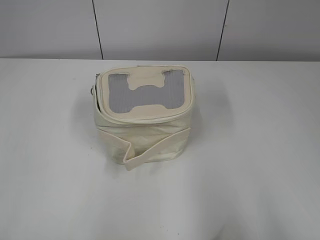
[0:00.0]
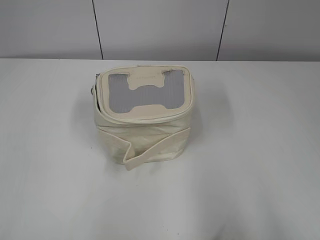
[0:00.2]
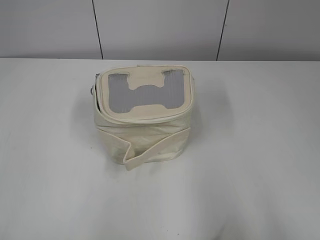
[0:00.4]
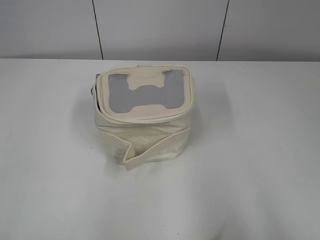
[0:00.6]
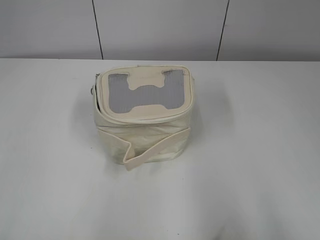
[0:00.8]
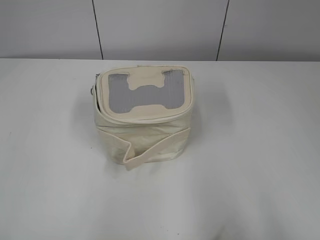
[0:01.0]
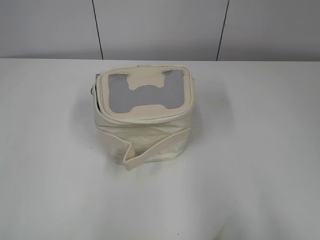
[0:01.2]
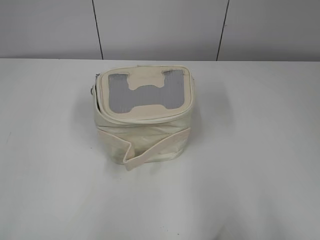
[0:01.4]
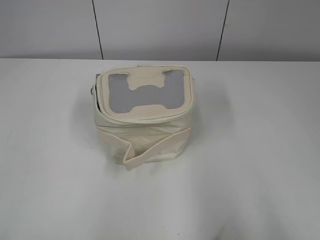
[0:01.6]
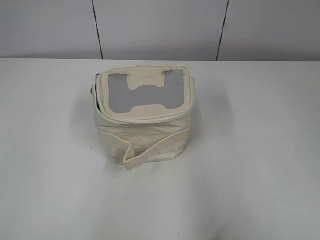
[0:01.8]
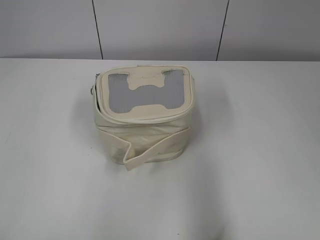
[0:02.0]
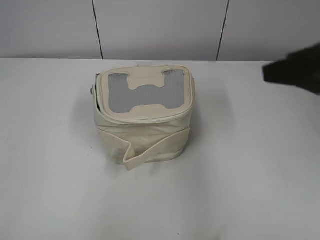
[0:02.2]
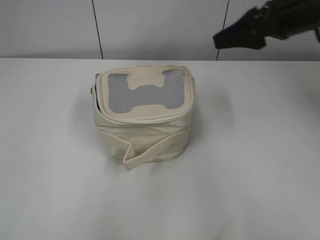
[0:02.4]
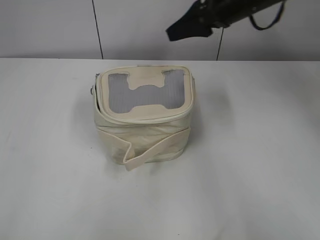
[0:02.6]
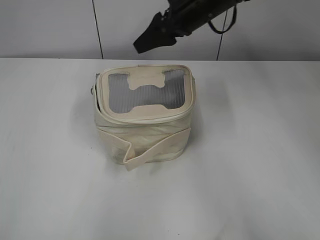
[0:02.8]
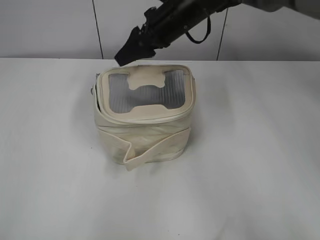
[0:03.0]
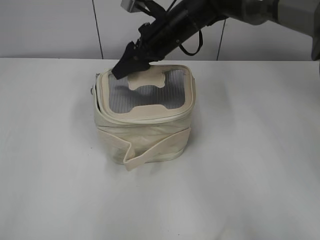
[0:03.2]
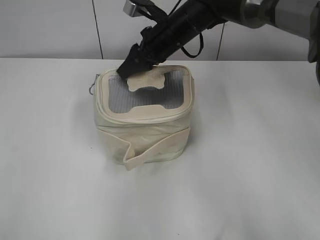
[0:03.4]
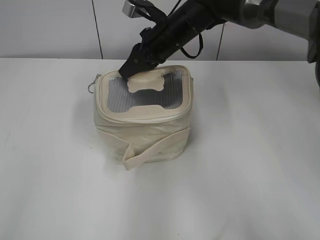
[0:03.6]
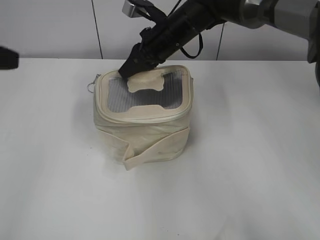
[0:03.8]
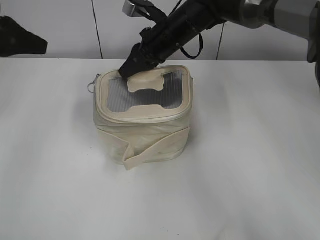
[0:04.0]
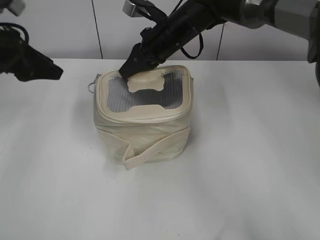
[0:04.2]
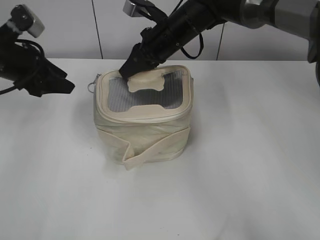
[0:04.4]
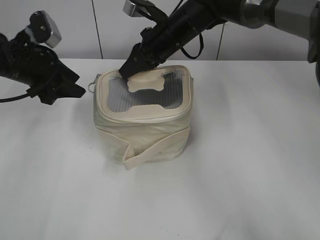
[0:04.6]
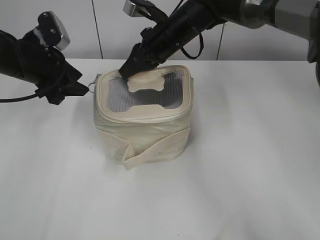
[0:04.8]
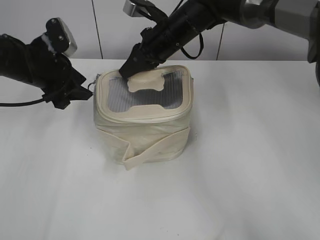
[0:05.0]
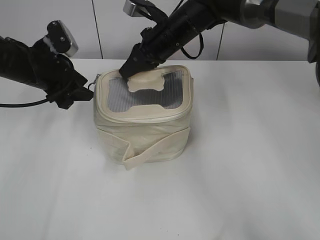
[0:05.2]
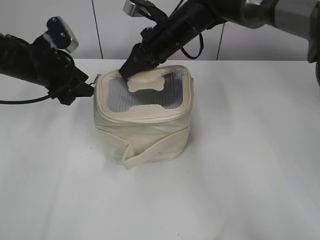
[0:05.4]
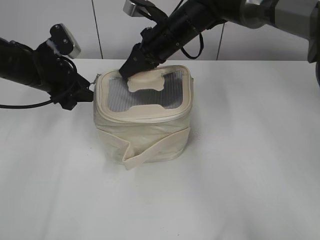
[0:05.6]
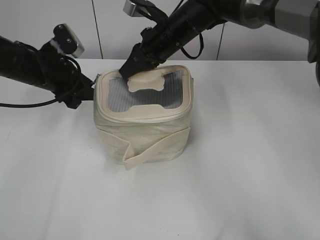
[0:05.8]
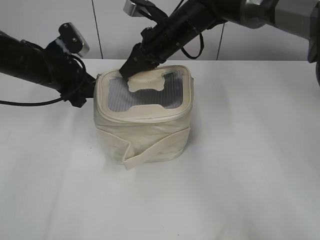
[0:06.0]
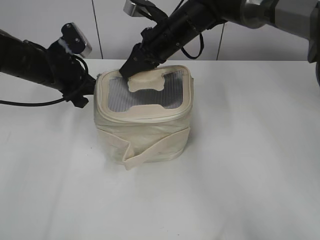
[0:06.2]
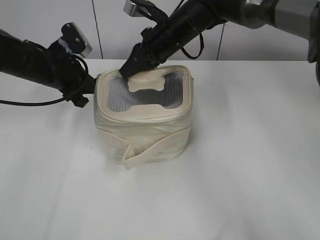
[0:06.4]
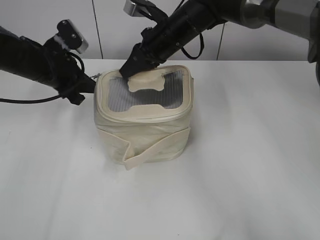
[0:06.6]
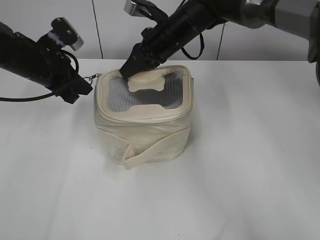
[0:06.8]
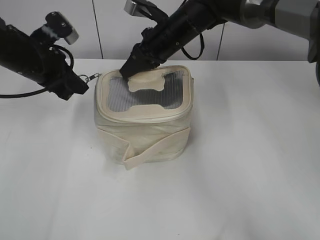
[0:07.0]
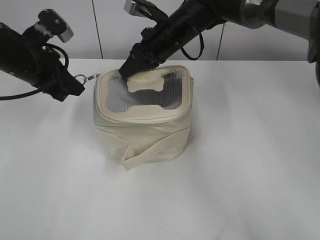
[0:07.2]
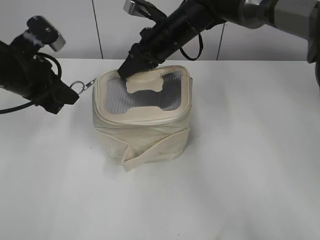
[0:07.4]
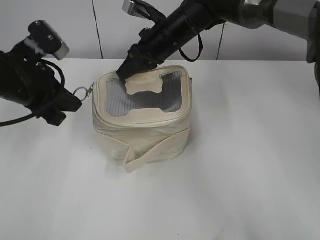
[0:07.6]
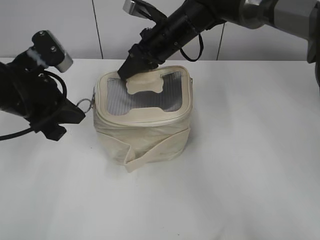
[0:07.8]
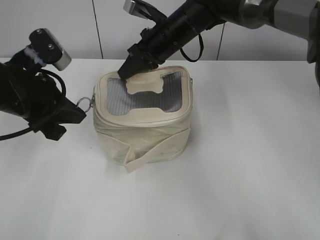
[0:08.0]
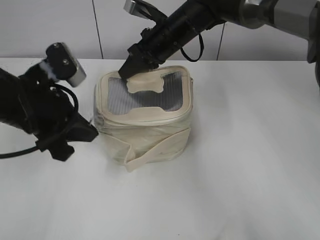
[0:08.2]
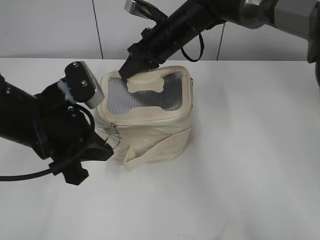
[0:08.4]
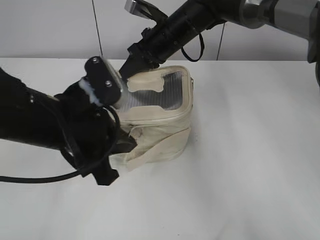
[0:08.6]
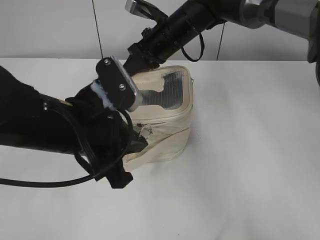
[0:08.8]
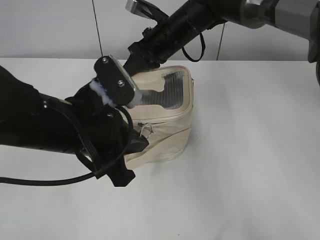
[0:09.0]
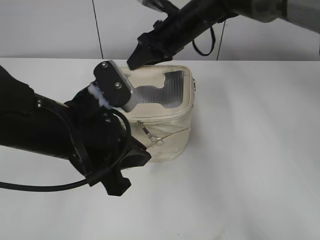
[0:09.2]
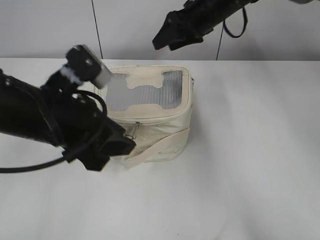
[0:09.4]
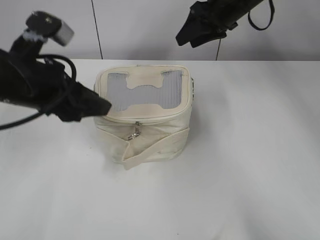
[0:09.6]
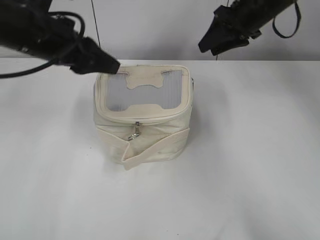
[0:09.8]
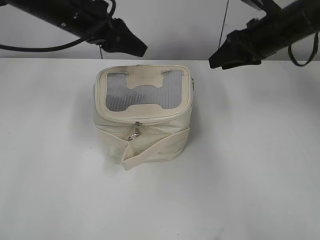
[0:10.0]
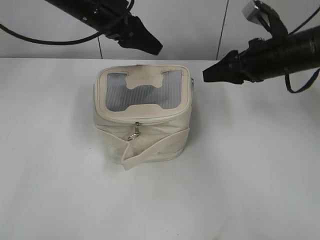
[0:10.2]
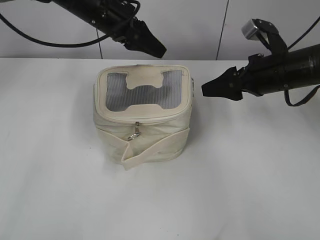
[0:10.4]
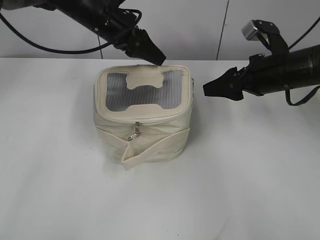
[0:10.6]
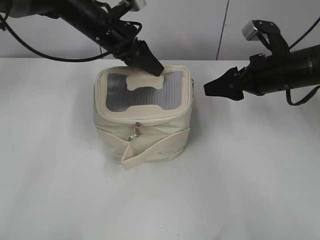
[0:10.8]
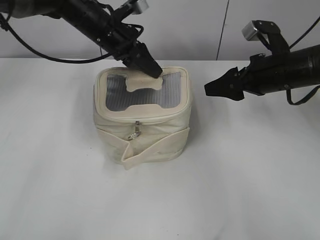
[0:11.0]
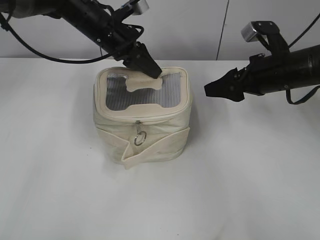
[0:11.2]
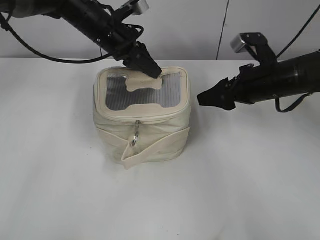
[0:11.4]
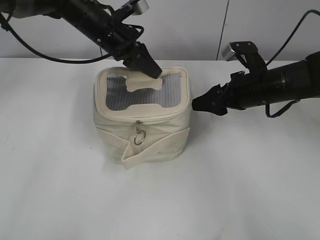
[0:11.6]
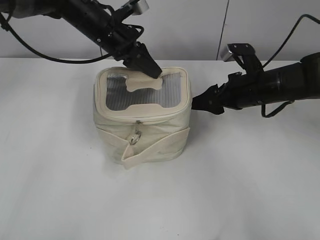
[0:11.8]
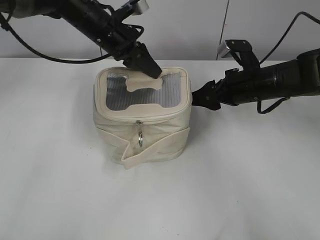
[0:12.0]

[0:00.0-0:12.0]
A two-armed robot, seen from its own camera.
Step, 0.0 to 9.0 s: Zip up the bag with your left hand.
1.6 to 3.0 s: The right gripper moves forward and to the left, about 50 cm.
3.0 to 4.4 s: The left gripper shifts roughly 35 cm forward. The right gripper closes up.
4.4 to 6.0 s: The left gripper heads to the right, covering approximately 5 cm.
6.0 to 7.6 s: The left gripper is displaced backward by approximately 10 cm, and closes up.
7.6 to 9.0 s: The left gripper heads to the right and backward, covering some 15 cm.
9.0 to 10.4 s: The right gripper goes roughly 20 cm to the right and backward, and opens. Meanwhile the left gripper is displaced forward by some 25 cm, and opens.
10.4 to 12.0 s: The right gripper ends up some 5 cm from where it was; the left gripper closes up.

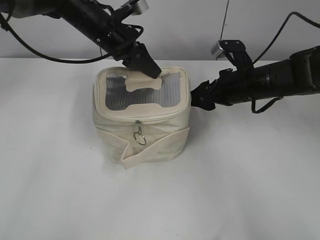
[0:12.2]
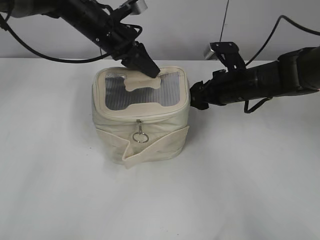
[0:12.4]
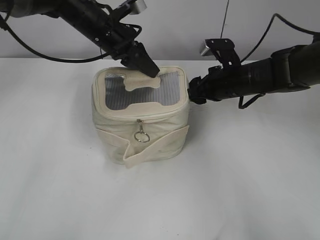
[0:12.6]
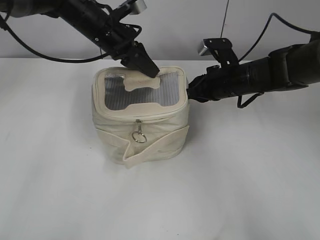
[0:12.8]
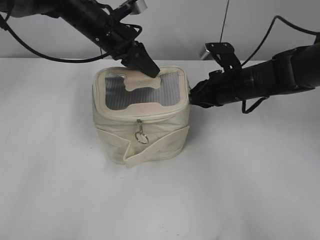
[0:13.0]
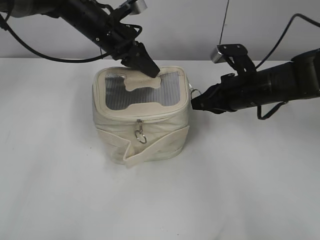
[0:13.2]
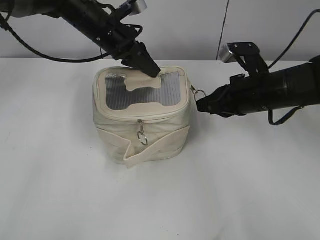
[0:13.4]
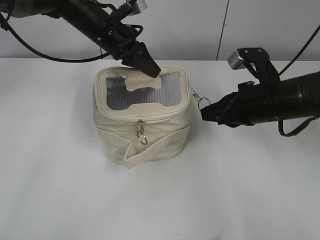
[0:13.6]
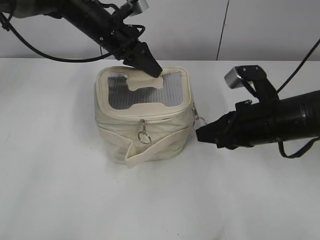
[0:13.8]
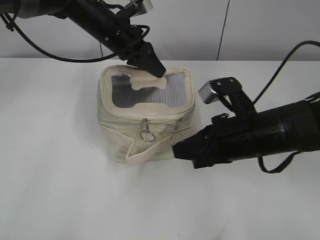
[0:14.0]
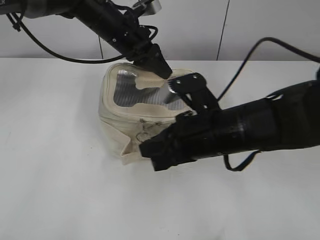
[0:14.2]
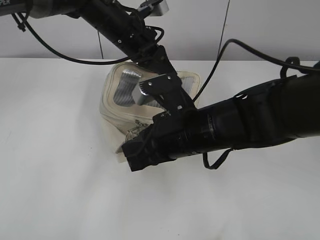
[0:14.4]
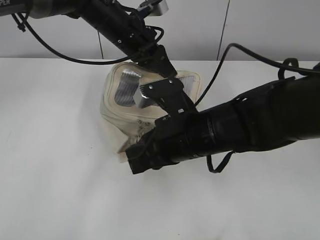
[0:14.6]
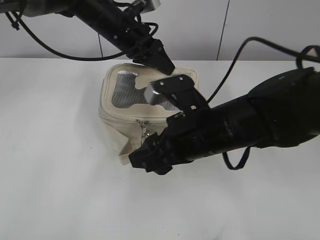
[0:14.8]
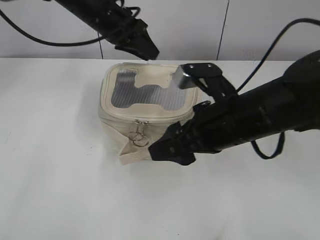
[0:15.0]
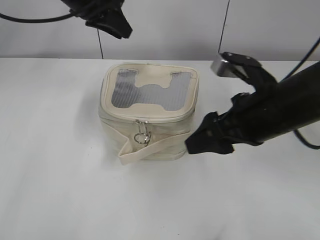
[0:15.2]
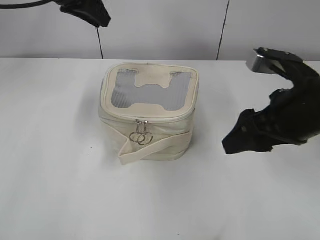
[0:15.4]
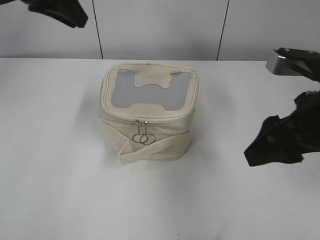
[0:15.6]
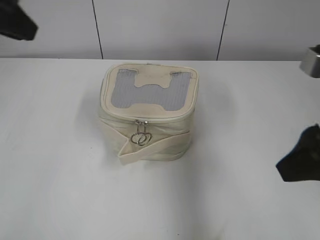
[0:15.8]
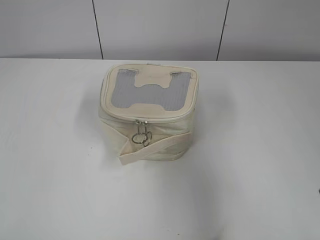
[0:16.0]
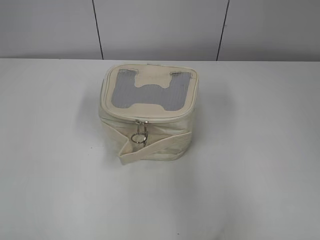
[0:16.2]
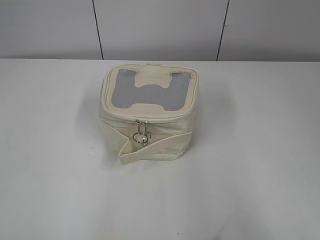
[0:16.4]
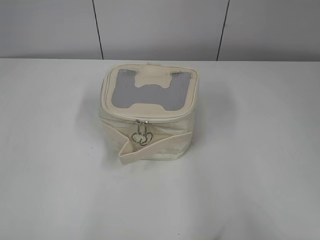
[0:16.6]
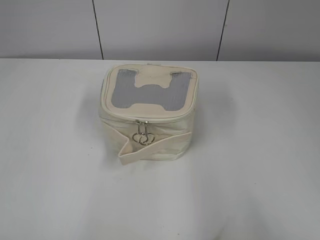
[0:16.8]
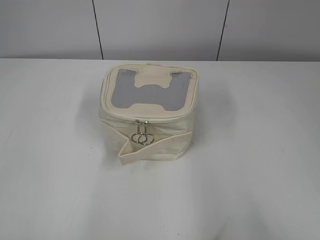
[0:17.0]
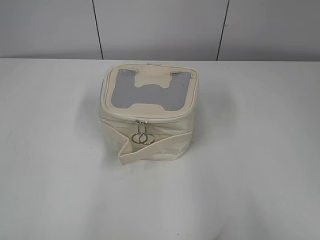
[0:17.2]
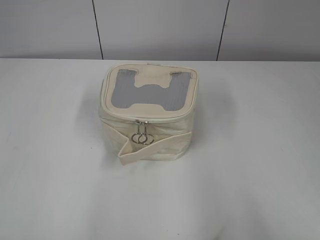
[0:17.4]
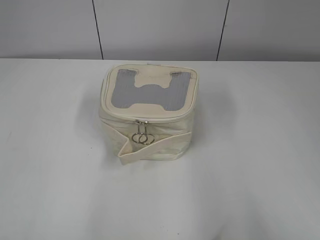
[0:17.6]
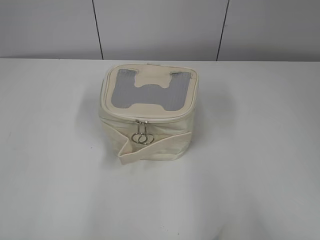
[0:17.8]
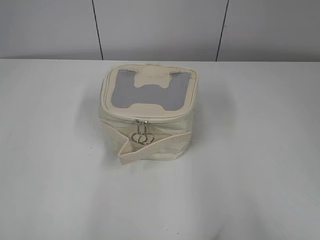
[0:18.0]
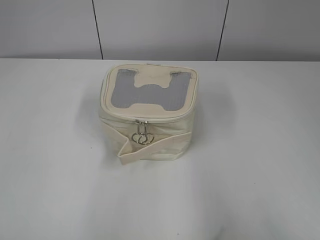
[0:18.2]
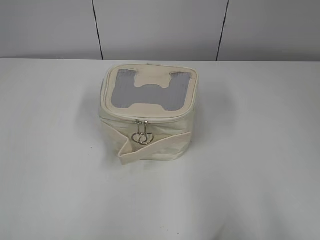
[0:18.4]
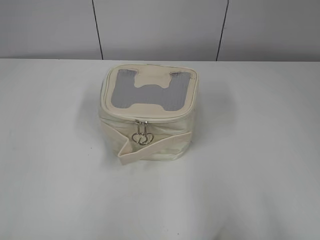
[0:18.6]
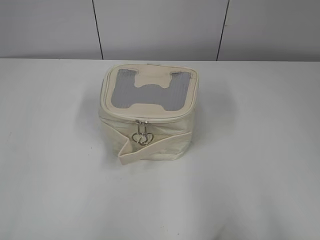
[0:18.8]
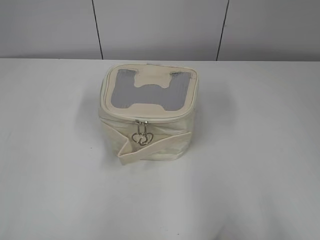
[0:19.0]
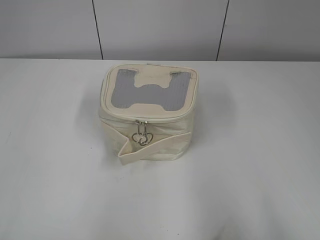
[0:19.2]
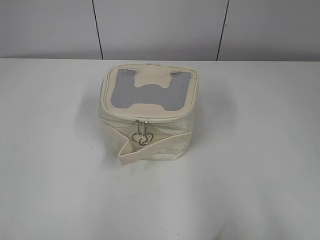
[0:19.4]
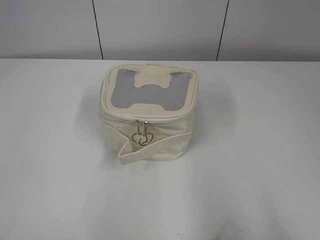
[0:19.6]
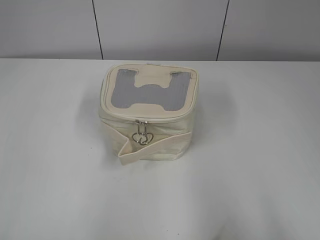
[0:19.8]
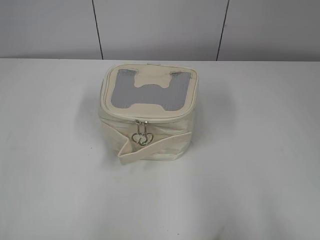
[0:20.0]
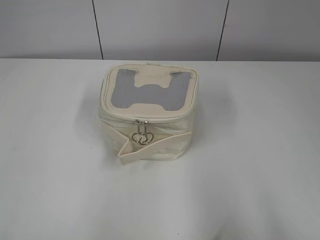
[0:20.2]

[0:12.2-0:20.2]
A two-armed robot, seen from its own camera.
Step, 12.2 to 14.8 s: Zip up the bag with your right hand.
12.2 to 13.8 s: The right gripper shifts approximately 10 cm backward, and closes up.
13.8 to 15.4 s: The left gripper travels upward and to the left by some 15 cm. The right gripper goes about 10 cm upward, moves approximately 10 cm to the left and comes back, and opens up.
15.4 to 17.0 s: The right gripper travels backward and to the right by some 25 cm. The left gripper is displaced backward by roughly 40 cm, and opens its fingers.
18.6 to 20.2 s: Both grippers stay put.

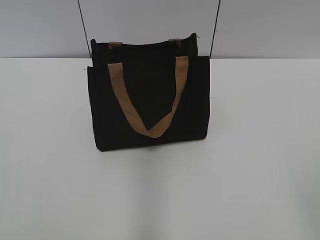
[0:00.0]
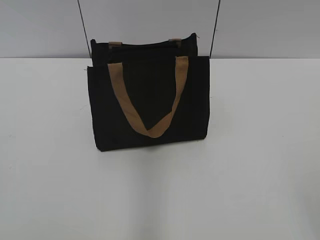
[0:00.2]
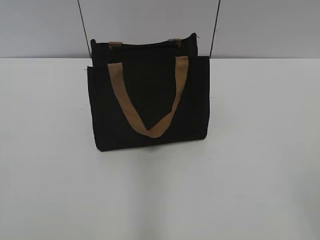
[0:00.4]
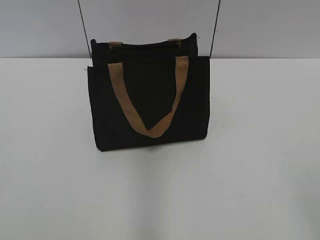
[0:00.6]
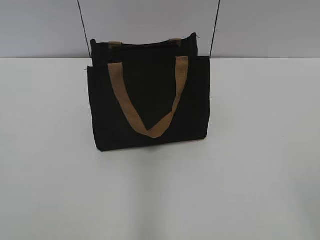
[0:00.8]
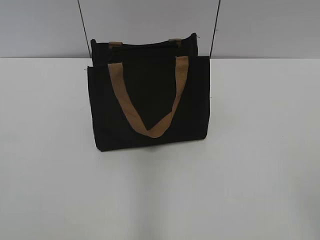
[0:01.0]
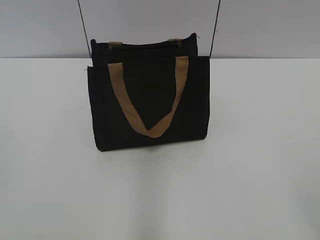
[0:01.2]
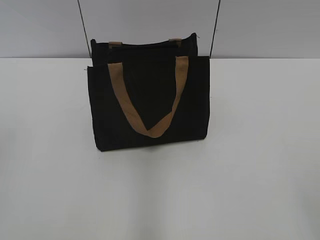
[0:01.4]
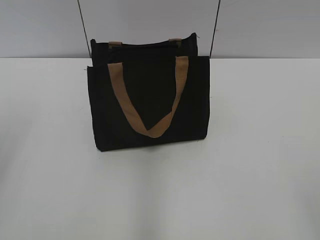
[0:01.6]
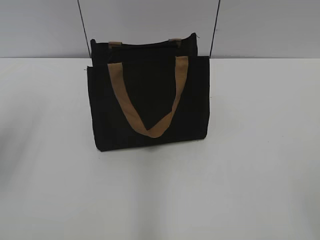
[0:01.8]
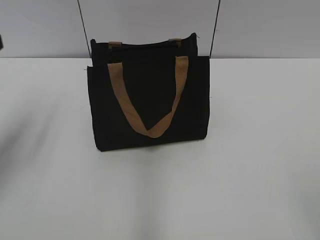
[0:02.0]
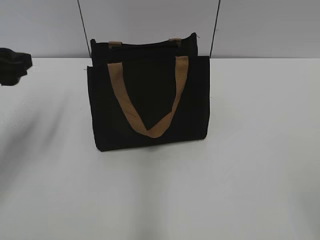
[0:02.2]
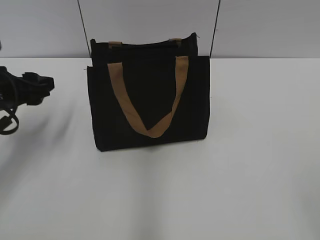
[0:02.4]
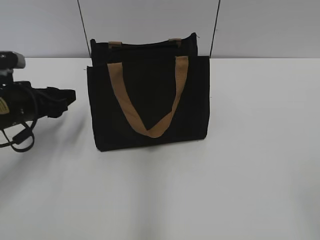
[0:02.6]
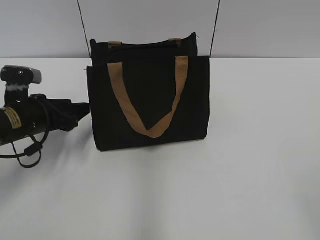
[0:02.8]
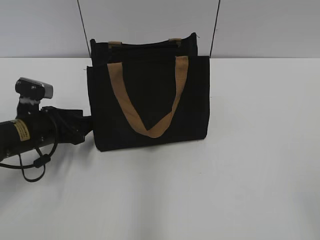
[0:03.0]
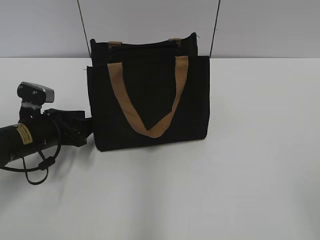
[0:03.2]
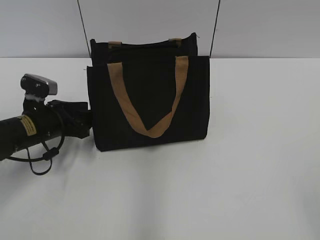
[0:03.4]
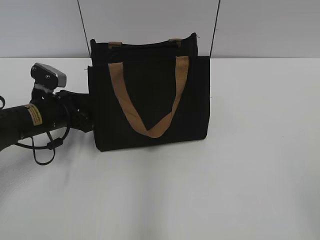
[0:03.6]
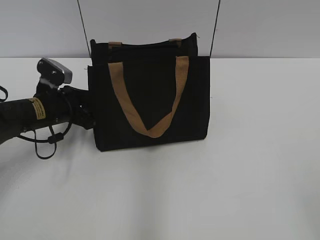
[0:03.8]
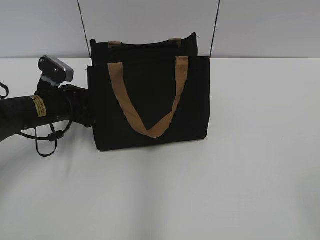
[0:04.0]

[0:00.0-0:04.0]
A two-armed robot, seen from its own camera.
1.4 to 2.6 s: The left gripper heads forward and downward, covering about 30 cm, and opens.
2.6 to 4.0 s: The left gripper heads forward, covering roughly 5 cm.
